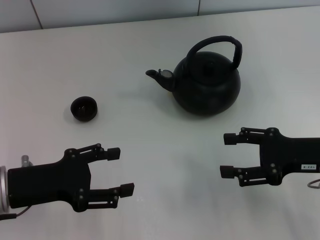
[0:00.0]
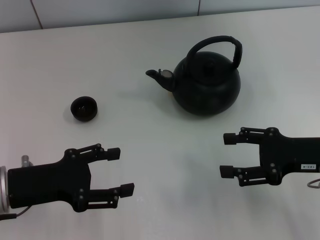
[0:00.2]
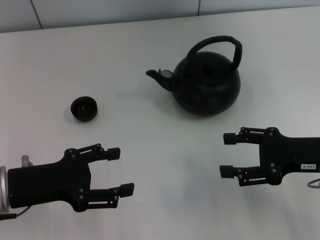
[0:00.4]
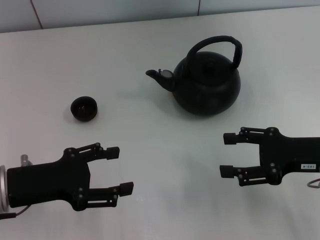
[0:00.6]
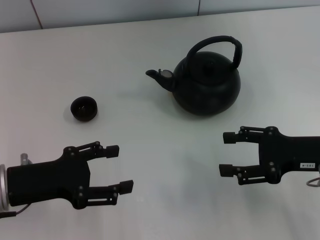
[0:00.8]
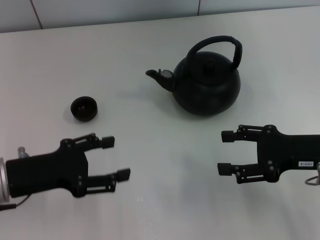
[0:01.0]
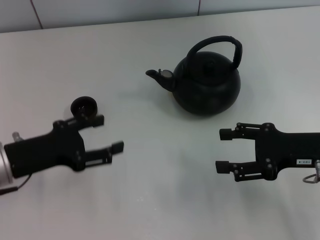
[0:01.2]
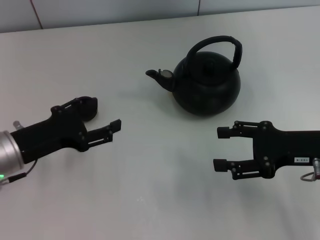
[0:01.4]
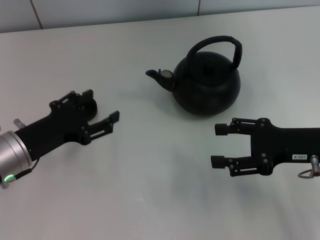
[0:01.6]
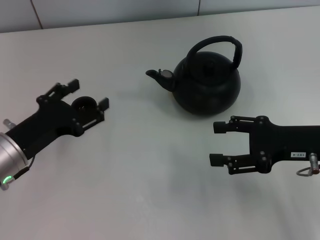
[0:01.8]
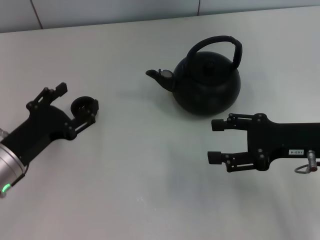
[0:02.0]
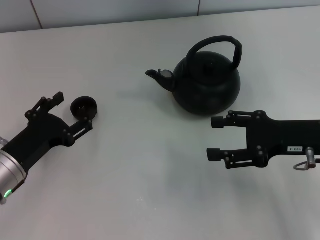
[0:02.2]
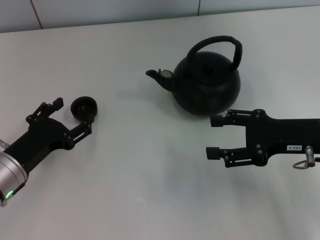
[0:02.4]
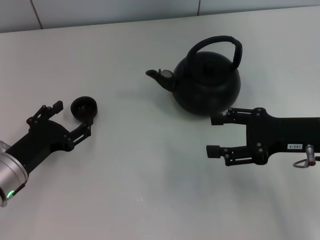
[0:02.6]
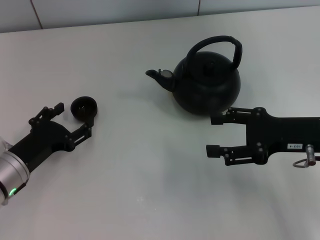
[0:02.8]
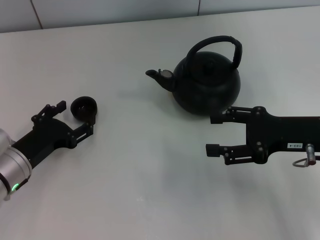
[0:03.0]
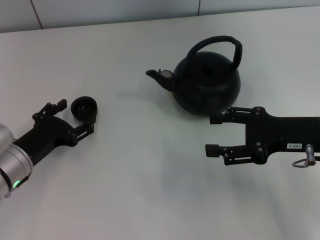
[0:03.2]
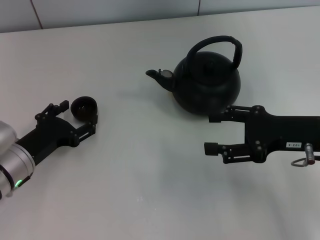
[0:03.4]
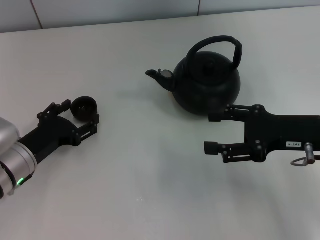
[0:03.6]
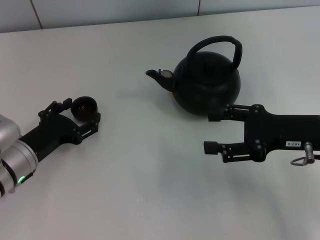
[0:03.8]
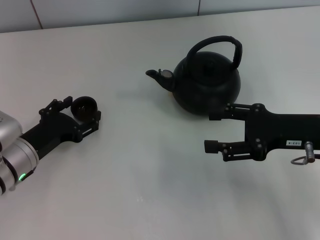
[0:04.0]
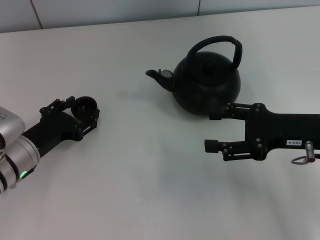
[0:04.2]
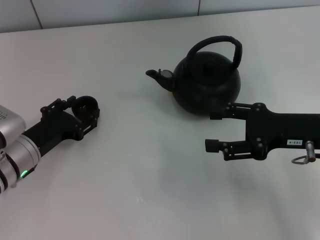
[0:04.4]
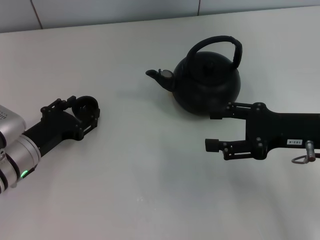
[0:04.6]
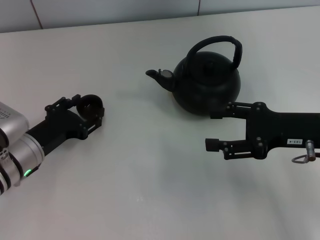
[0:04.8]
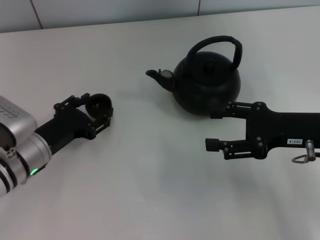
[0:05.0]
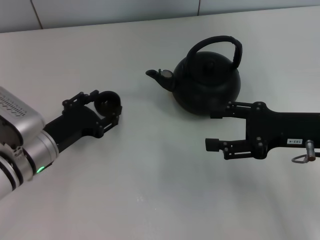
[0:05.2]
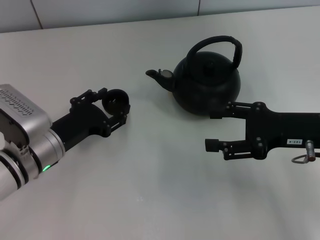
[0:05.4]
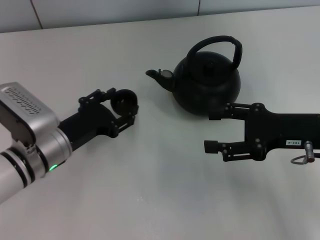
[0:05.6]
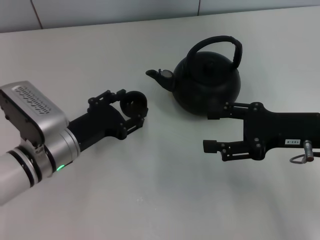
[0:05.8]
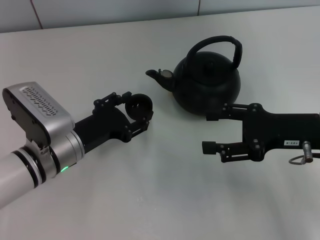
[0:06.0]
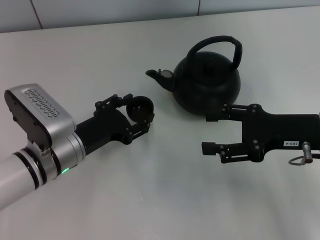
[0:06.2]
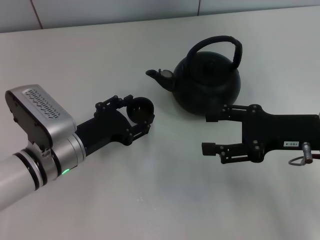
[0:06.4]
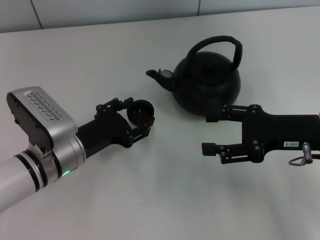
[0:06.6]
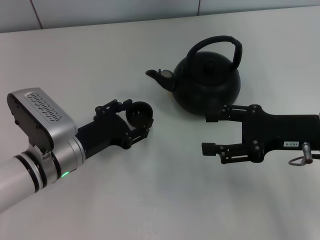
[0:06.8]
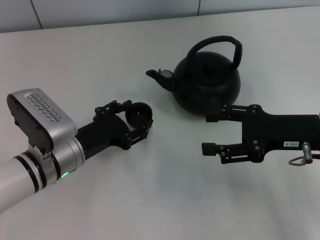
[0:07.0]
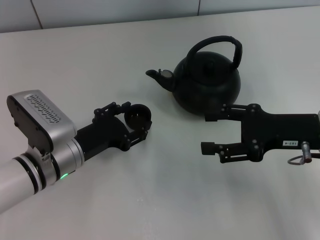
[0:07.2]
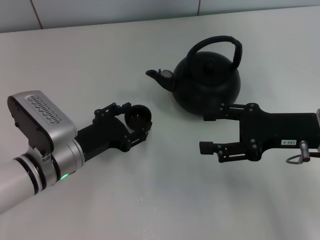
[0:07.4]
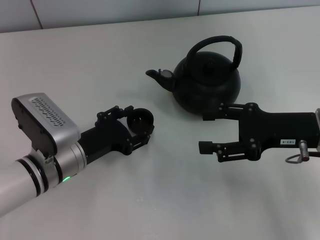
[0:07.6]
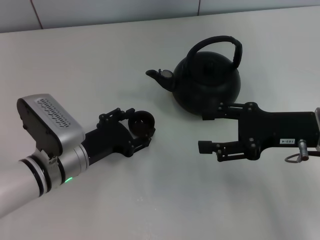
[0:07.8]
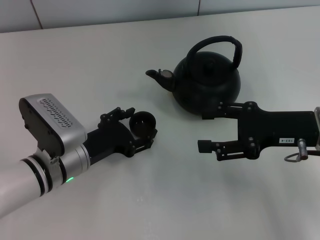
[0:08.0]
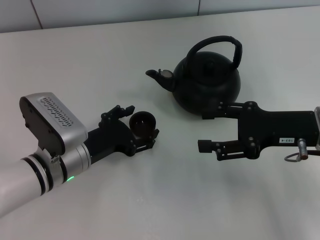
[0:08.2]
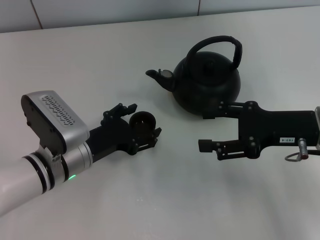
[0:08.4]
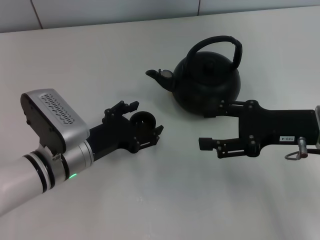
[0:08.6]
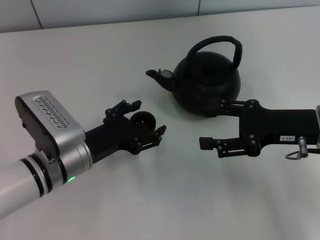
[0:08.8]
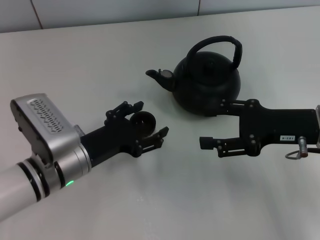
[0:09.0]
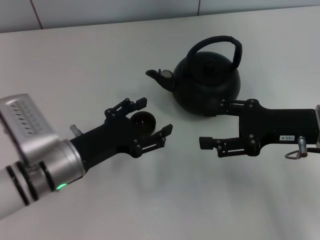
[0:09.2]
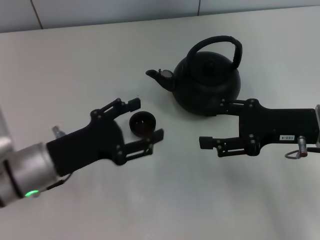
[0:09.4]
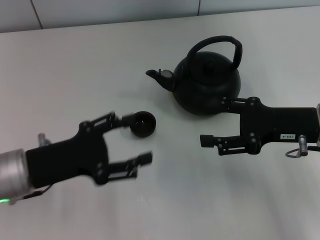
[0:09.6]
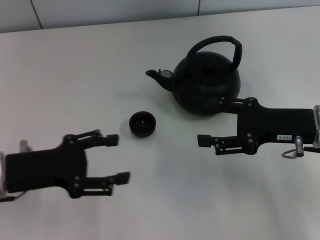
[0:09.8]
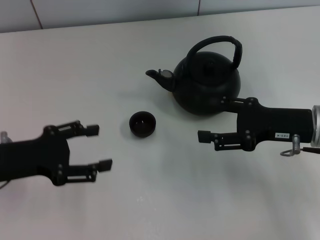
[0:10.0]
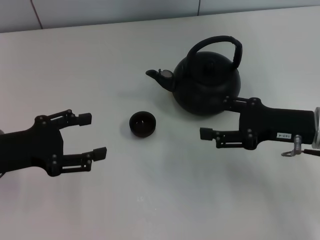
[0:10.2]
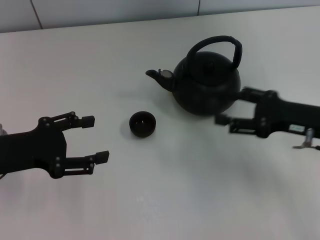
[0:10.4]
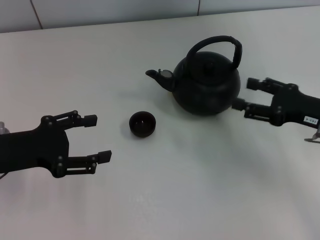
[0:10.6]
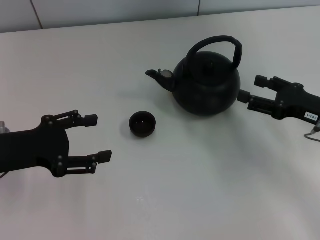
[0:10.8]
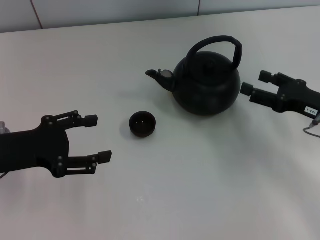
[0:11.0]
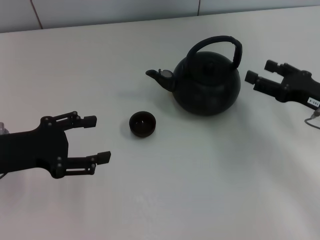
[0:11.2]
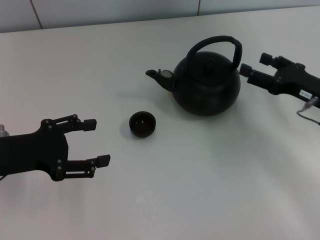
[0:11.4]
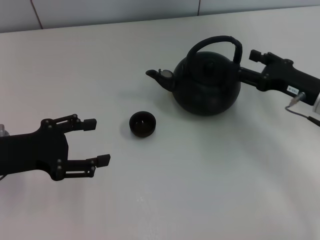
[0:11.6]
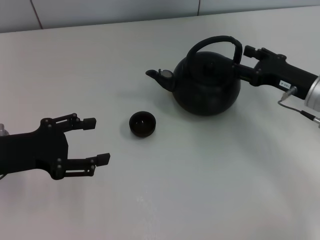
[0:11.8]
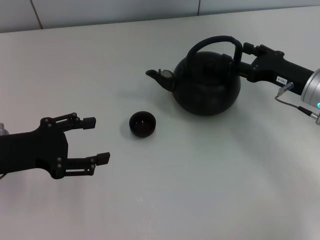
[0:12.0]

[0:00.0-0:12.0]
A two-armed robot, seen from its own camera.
Task of the whole recording: Grasp the handle of the teapot with one hand and pour tea into the teacup.
Step, 0:00.0 to 0:05.2: Pick up the teacup with the left gripper.
Step, 0:05.4 to 0:09.0: Place the teacup in the center of view with the left gripper.
0:01.6 to 0:03.0: The left gripper shifts some 5 cm downward.
0:03.0 to 0:04.4: The grippers move only a little.
0:04.4 to 0:06.0: The left gripper moves to the right, approximately 5 cm.
0:06.0 to 0:07.6: The left gripper opens.
0:07.6 to 0:09.0: The grippers move only a little.
0:09.0 to 0:10.4: The left gripper shifts some 15 cm to the left and upward.
0:10.4 to 0:12.0: The right gripper shifts approximately 5 cm forward.

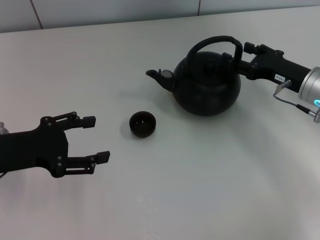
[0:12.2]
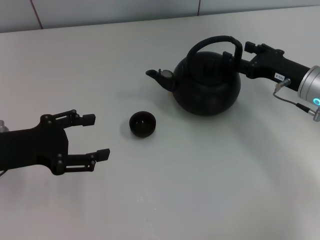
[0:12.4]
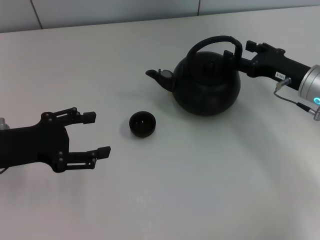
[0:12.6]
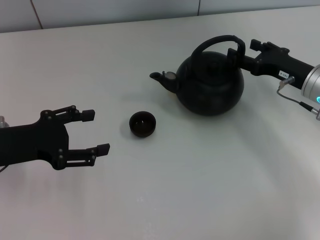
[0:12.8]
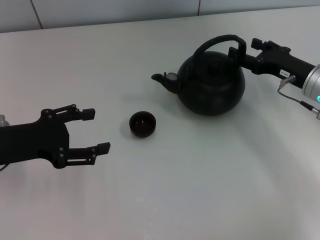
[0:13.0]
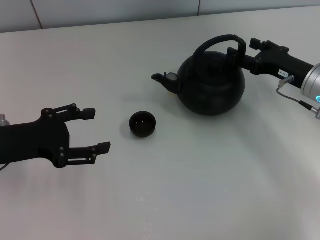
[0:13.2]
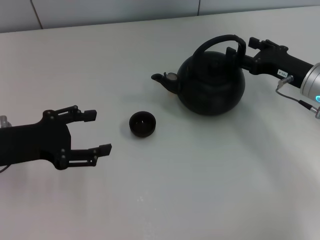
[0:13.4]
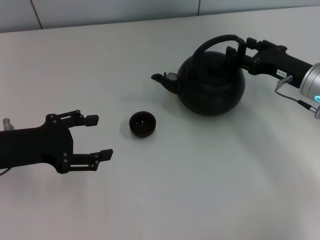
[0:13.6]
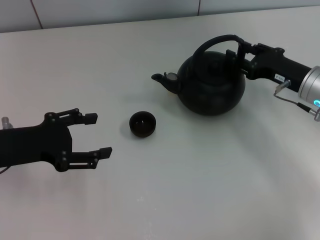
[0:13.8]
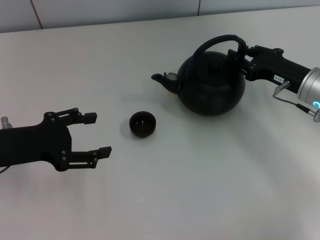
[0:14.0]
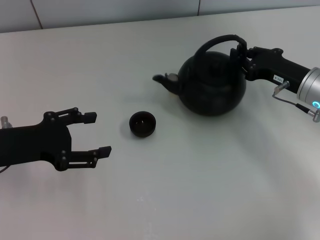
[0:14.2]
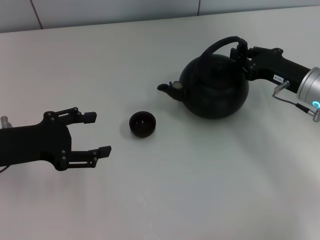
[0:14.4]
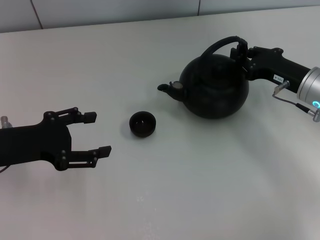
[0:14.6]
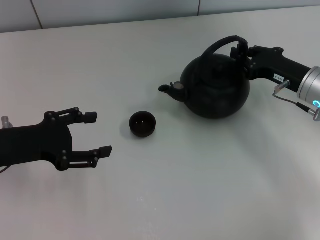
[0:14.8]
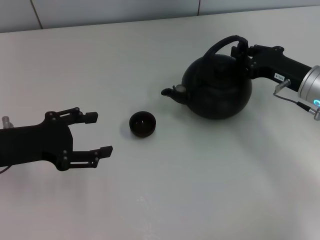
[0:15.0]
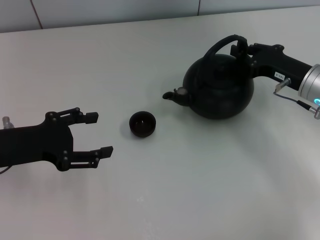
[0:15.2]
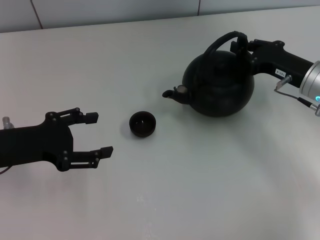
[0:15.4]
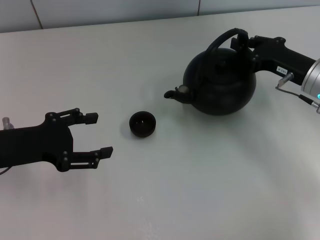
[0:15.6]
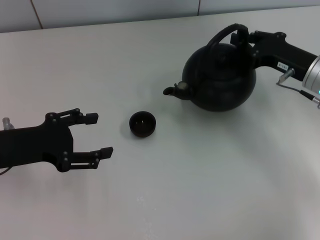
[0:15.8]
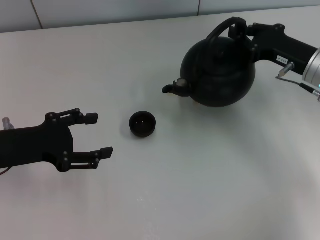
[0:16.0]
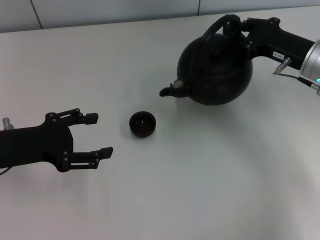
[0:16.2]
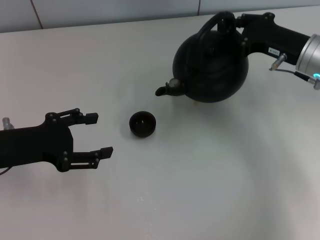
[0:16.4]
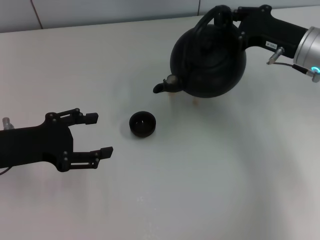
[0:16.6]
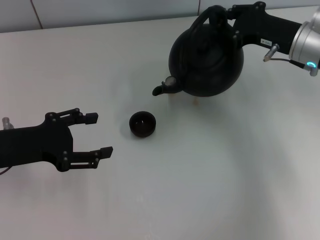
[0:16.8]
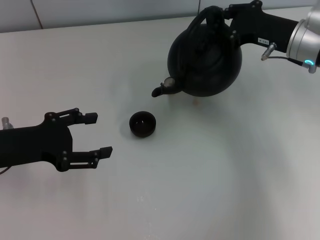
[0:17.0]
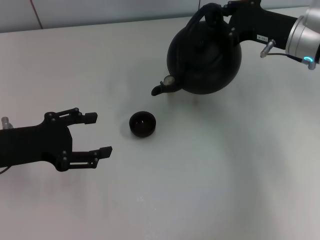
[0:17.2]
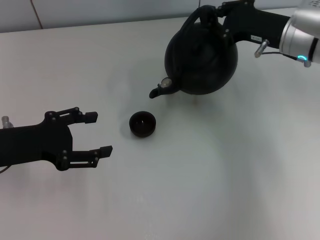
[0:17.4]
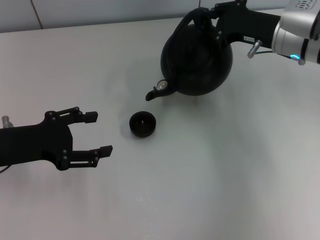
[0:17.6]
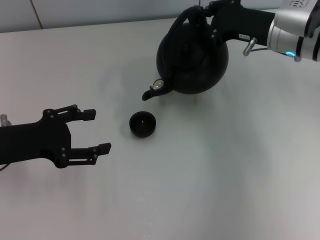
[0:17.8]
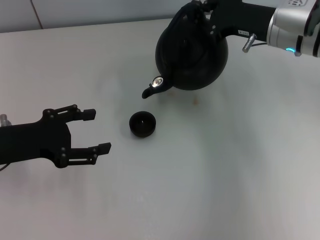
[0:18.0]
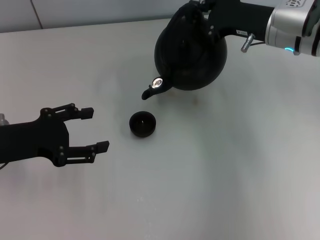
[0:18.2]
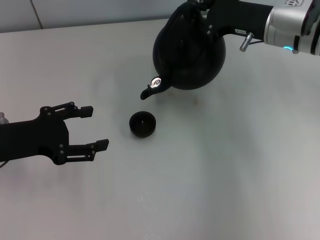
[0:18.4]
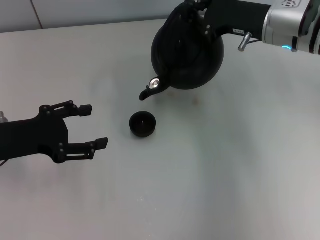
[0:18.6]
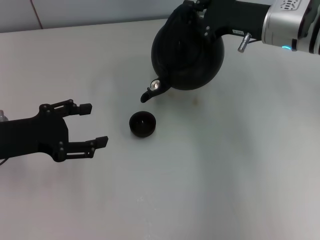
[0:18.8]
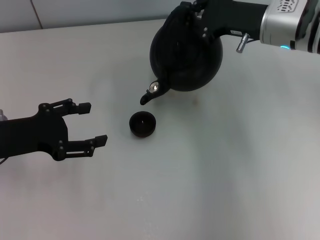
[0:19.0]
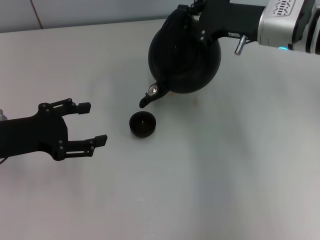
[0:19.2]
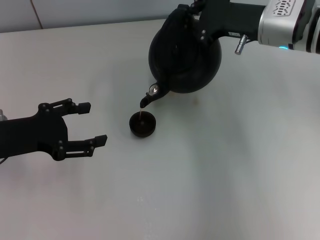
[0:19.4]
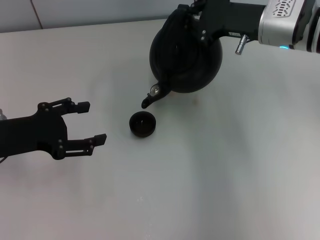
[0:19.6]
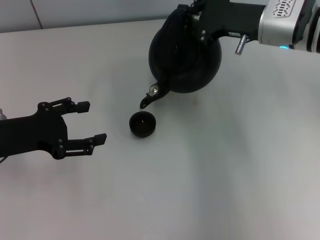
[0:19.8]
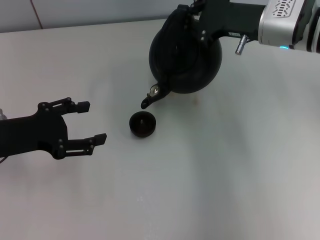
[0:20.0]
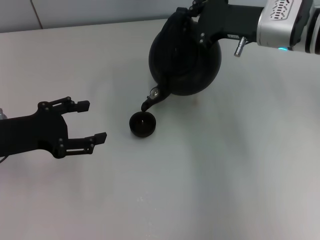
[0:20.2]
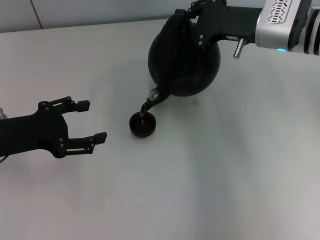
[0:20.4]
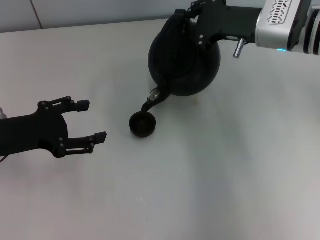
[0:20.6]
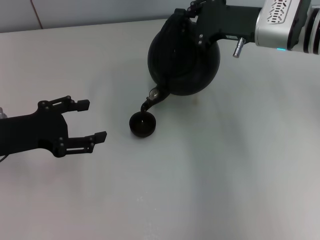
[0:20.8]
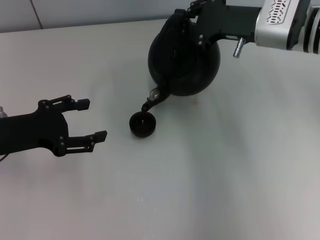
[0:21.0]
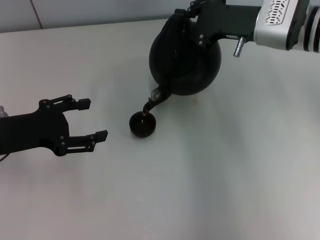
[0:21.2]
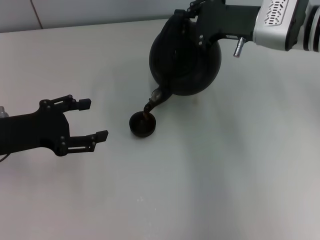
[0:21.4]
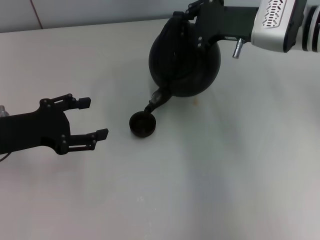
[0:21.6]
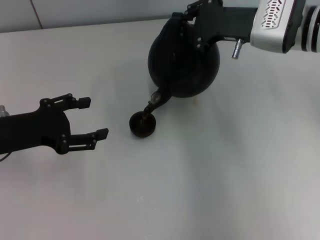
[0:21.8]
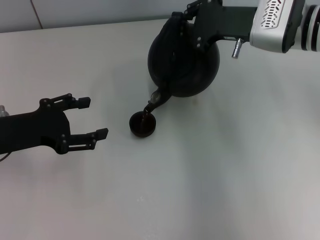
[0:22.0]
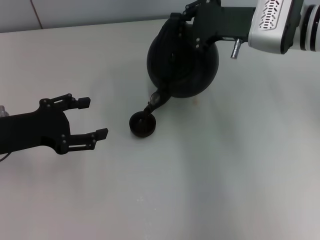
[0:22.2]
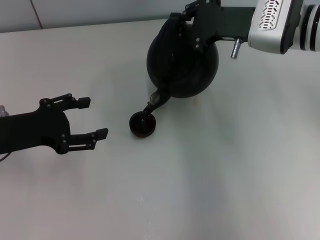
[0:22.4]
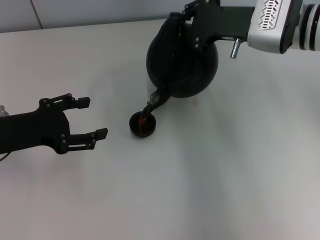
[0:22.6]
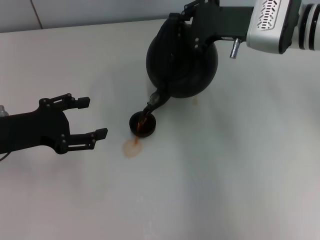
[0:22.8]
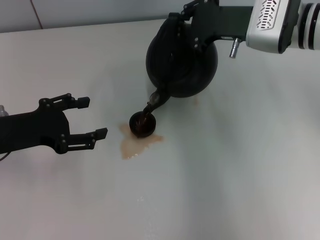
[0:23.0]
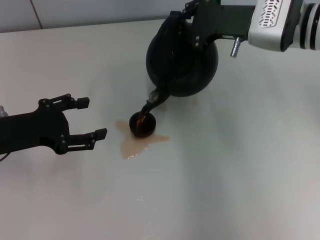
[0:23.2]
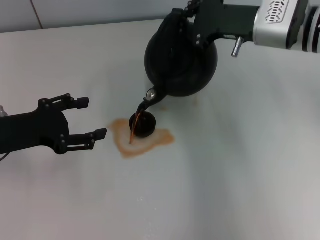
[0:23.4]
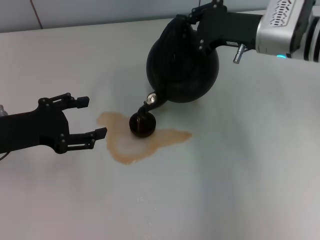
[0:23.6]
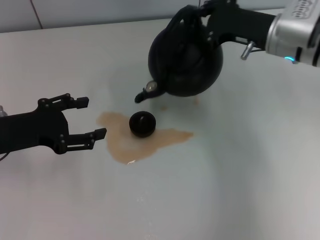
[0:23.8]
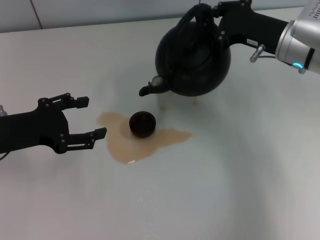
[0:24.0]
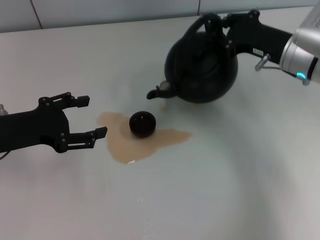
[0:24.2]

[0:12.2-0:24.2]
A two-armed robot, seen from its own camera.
Task of the whole recording: Grasp the handle of the teapot with one hand and pour tea into the teacup.
Step, 0:12.2 to 0:15.6: Pick up the teapot with the right gripper.
0:12.2 to 0:13.8: The two grippers keep their place.
0:13.8 to 0:15.2: The right gripper closes its fingers.
0:15.2 to 0:16.6: The right gripper travels upward by about 5 cm.
0:16.6 to 0:18.2: The right gripper ends up roughly 5 cm from where it was.
0:18.2 to 0:19.8: The grippers stay close to where they were, moving slightly.
0:19.8 to 0:21.2: The two grippers keep their place.
0:21.2 to 0:22.6: Neither gripper changes place.
0:22.6 to 0:24.2: The right gripper moves downward, roughly 5 cm.
